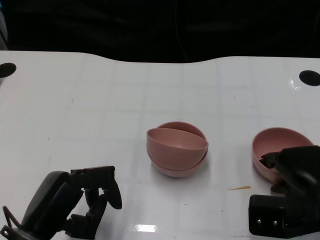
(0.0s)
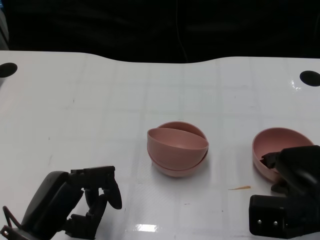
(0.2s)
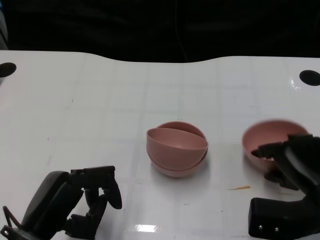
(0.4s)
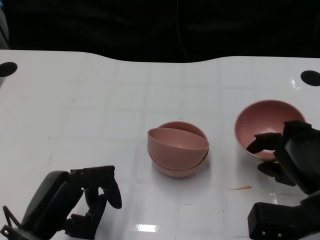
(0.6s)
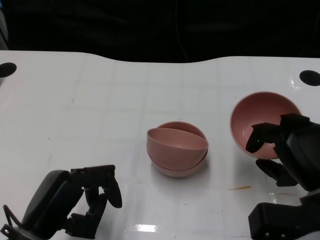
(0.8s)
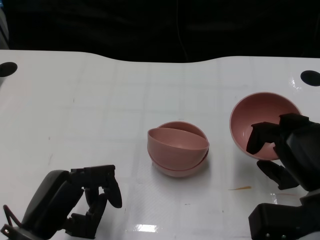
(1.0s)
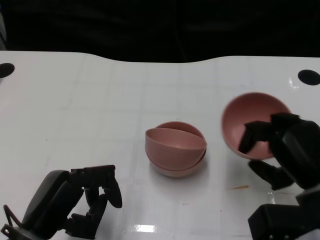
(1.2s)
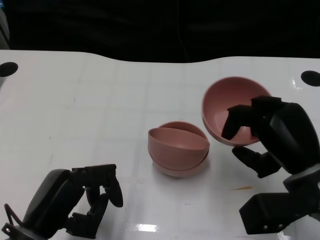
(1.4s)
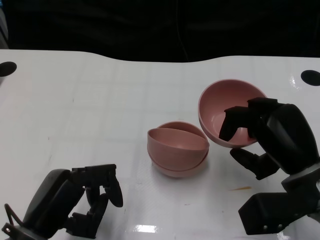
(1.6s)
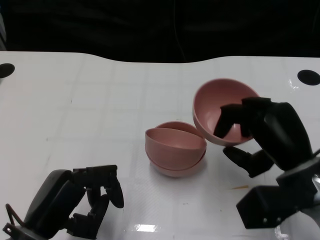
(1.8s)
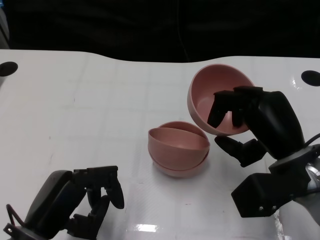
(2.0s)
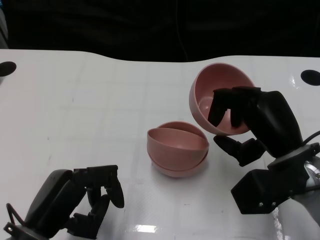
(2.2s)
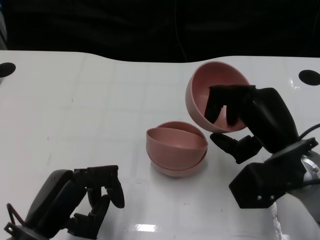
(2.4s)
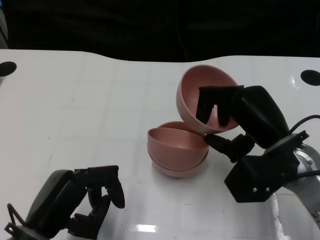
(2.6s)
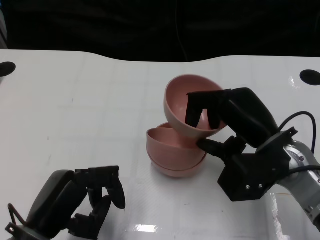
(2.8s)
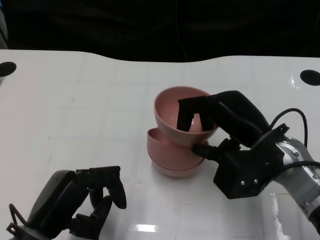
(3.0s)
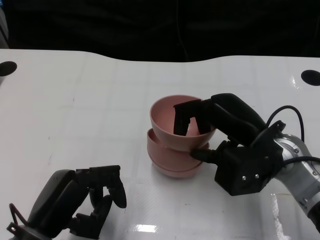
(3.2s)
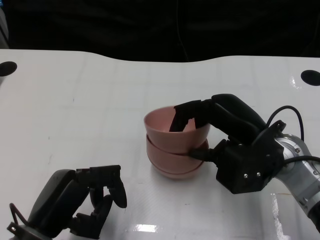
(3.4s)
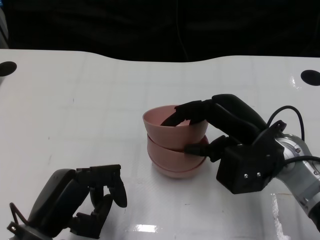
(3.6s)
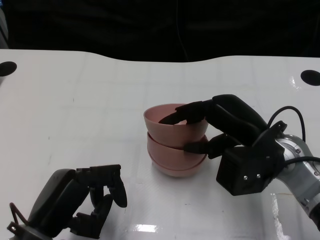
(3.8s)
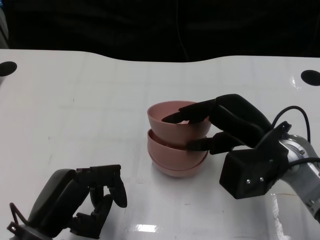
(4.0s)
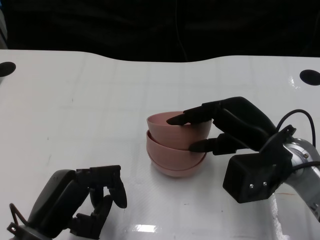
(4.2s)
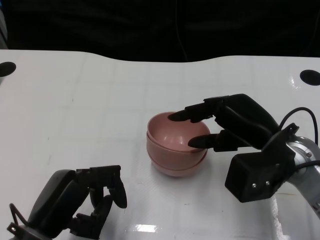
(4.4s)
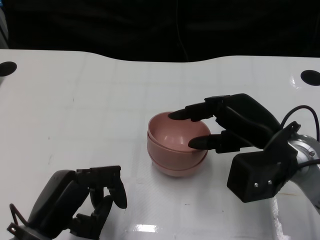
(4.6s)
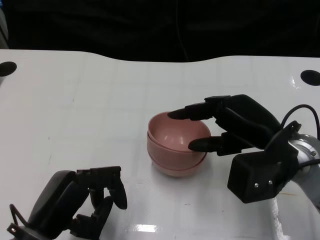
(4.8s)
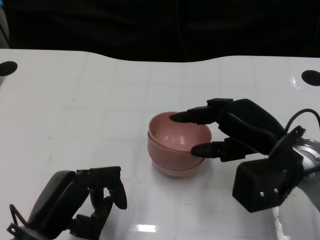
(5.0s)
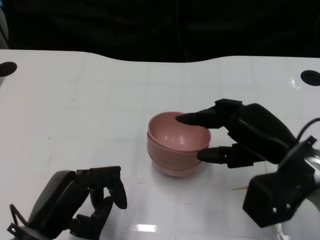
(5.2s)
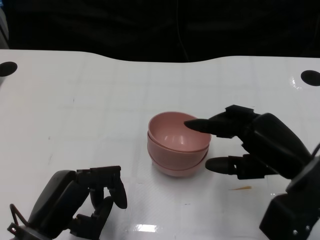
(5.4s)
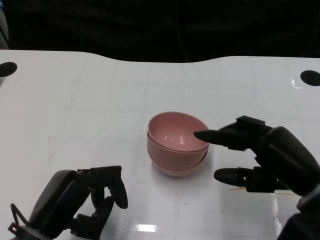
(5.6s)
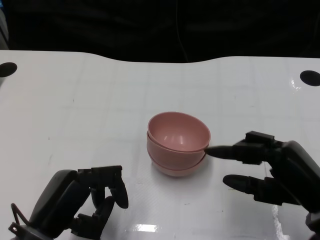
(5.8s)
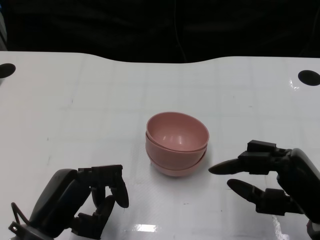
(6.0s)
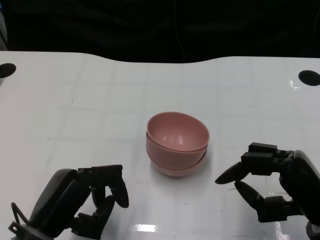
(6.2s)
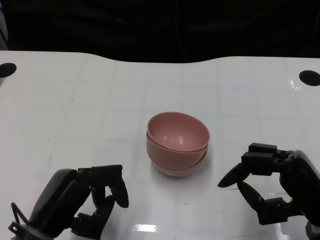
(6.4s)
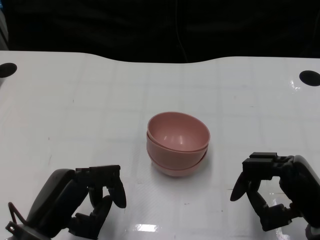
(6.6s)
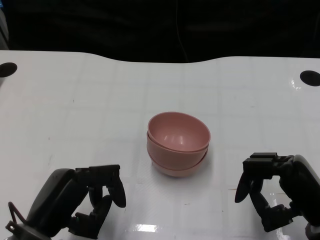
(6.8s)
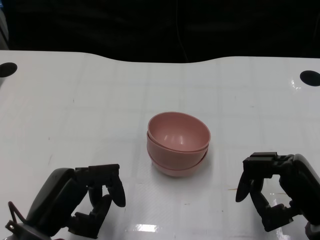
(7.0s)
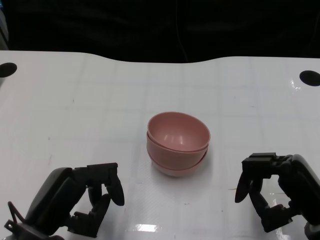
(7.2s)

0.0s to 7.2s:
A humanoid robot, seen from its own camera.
Task of the whole recording: Pick up the bowl on one side of the table and place it on top of the middle bowl, then pick up the bowl on the other side of the table and place it on top of the middle bowls.
Step, 0.4s to 5.4s: Place the bowl on the right onto the bowl in the middle with right gripper.
1.4s to 2.8s: The right hand shifts by approximately 5 cm.
2.8s to 4.4s: The hands stay close to where they were, moving slightly.
4.4s to 5.8s: The right hand heads backward and to the right, covering approximately 10 cm.
5.8s to 7.2s: There are only small adjustments of the hands.

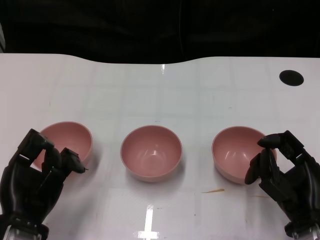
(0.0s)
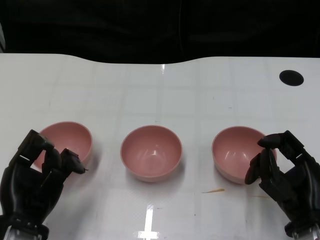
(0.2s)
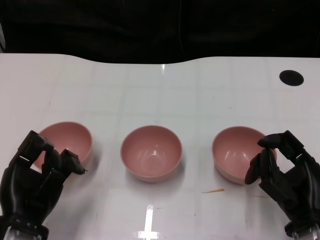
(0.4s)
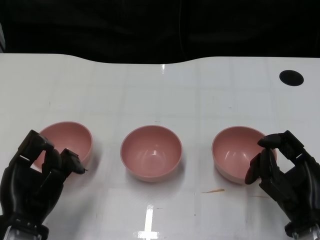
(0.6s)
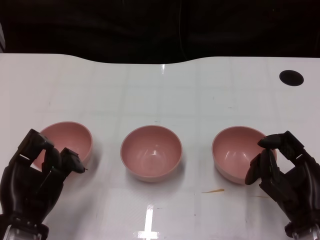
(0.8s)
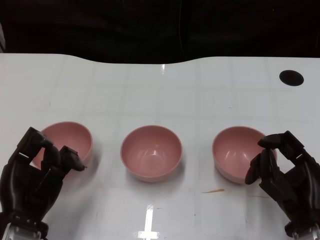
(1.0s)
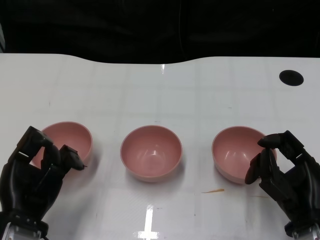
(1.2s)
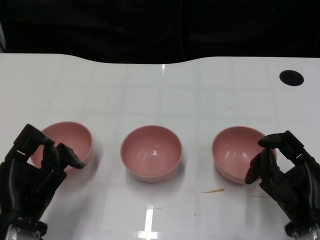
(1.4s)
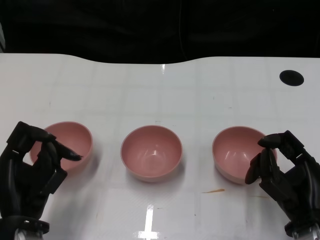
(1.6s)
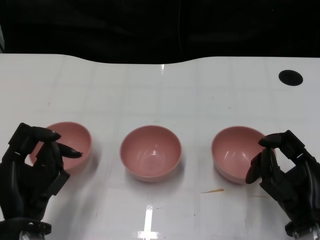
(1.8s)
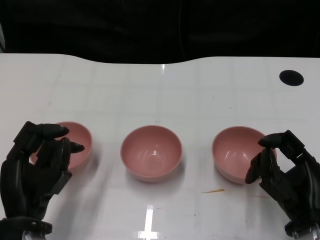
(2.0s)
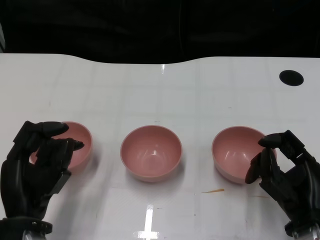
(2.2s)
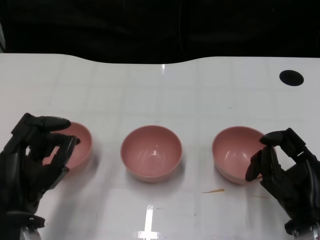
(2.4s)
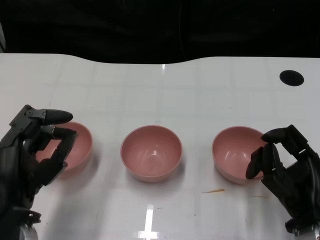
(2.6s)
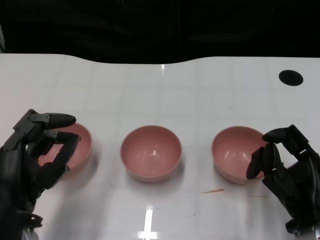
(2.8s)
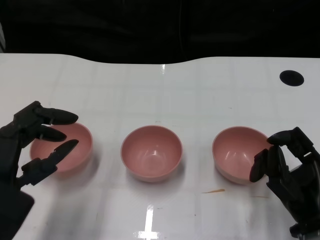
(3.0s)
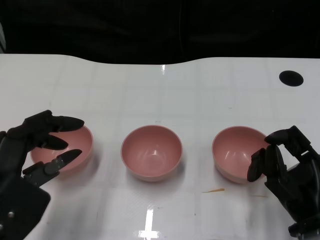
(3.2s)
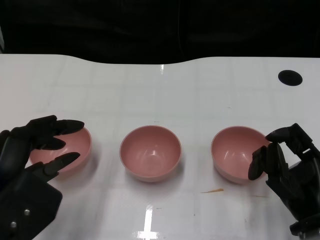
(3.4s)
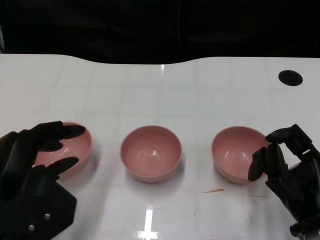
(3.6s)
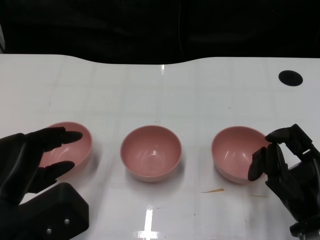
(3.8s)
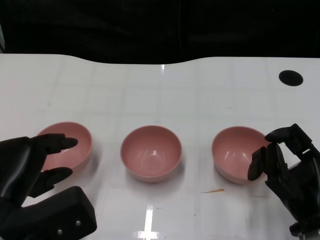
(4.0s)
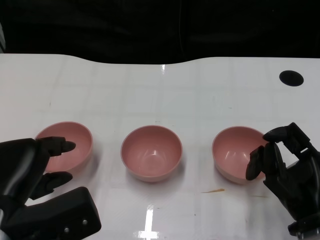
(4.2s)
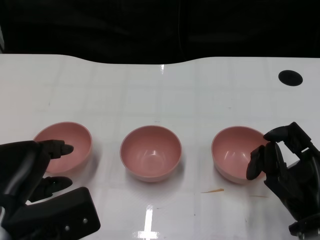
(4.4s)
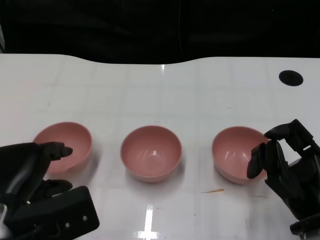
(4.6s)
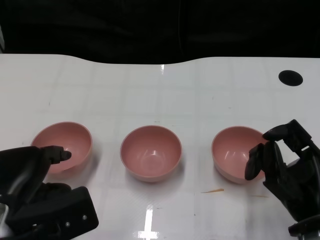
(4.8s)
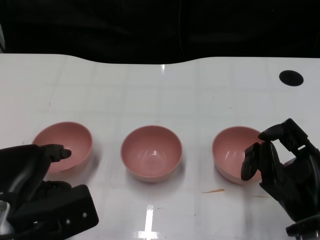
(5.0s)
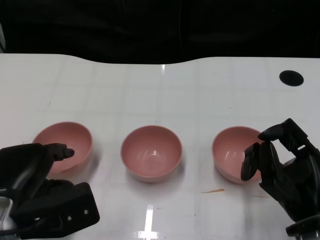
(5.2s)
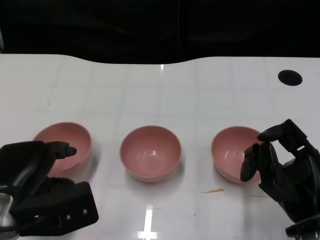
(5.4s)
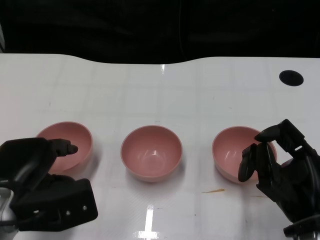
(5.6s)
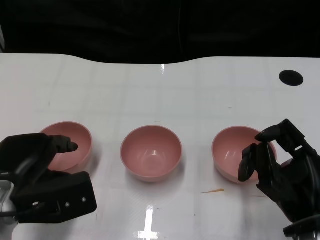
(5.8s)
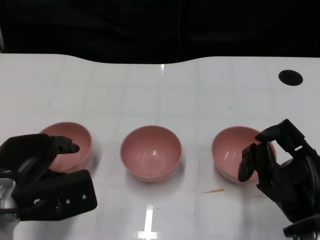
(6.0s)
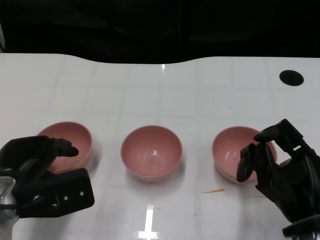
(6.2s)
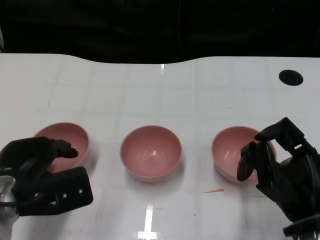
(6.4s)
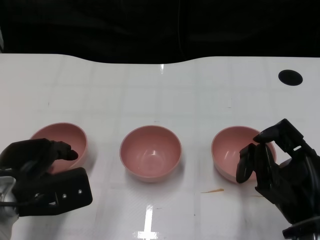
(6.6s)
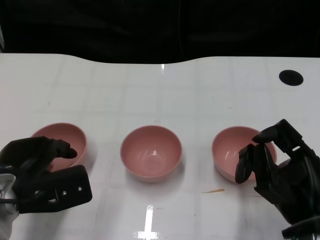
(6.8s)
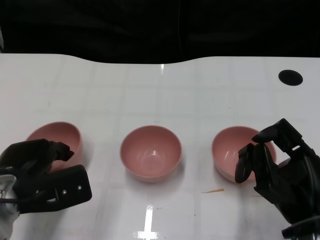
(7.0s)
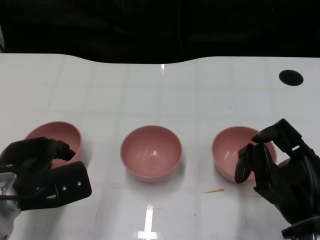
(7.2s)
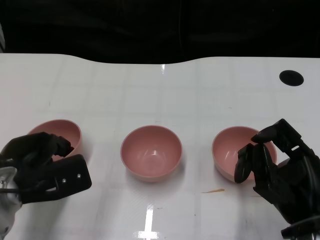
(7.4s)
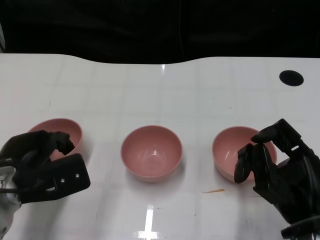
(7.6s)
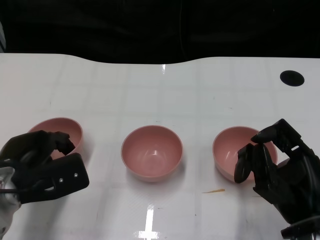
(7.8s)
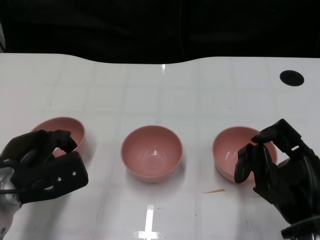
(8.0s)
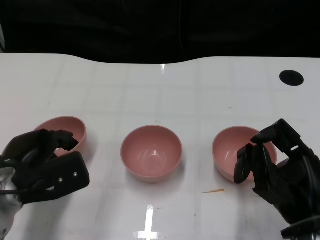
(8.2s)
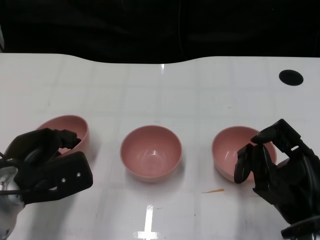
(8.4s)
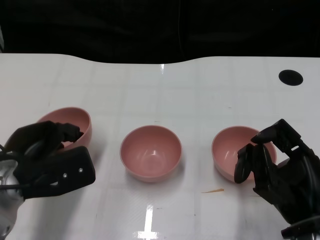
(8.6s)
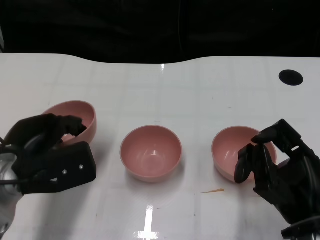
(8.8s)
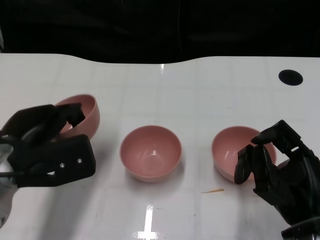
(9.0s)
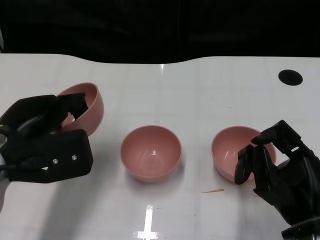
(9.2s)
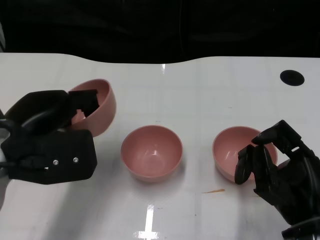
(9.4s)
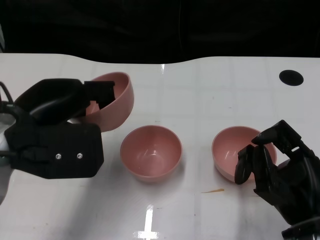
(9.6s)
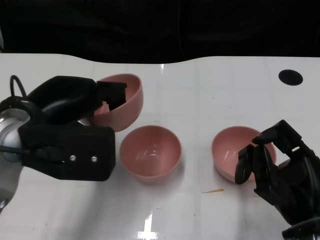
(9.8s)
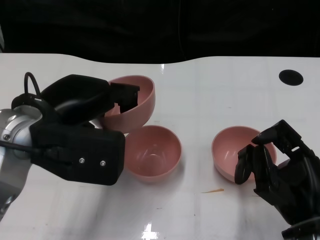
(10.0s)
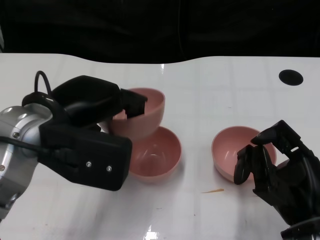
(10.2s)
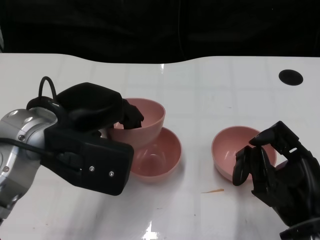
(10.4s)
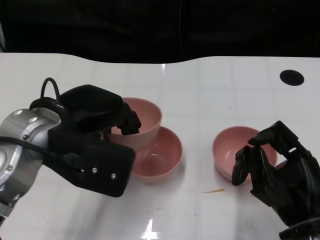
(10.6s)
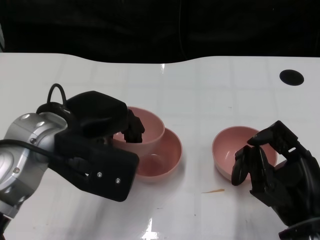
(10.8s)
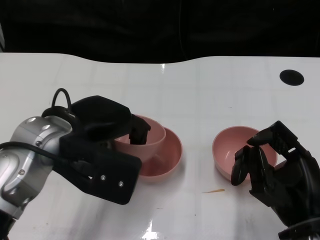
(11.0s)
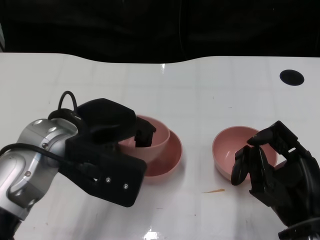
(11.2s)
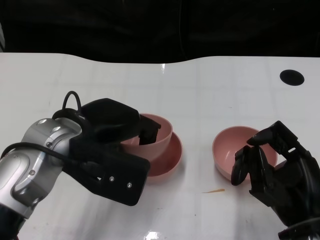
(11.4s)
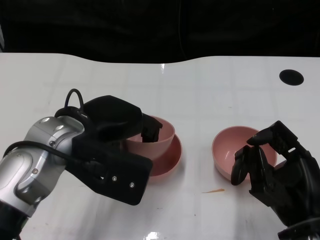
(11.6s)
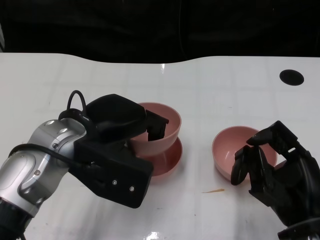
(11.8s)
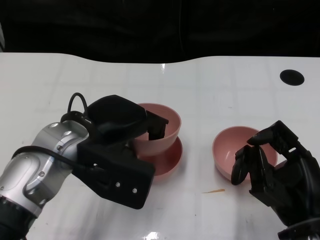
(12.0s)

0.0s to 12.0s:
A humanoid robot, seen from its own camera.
Task of the whole recording: Pick up the bowl on one side of the table and place it on top of the middle bowl, then pick up the bowl on the other side of the table and place it on top of the middle bowls.
Step, 1.4s to 8.2s: Grasp the bowl on the left with the left gripper.
1.6s to 3.0s: The left hand travels upward by approximately 5 cm.
4.4s to 6.0s: The left hand changes place by approximately 5 cm.
6.0s to 7.6s: The hands stay close to where they were, moving slightly.
7.6s to 9.0s: The left hand shifts about 5 cm upward.
9.0s to 10.4s: The left hand shifts about 10 cm upward and to the right.
10.4s to 12.0s: The hands make only small movements.

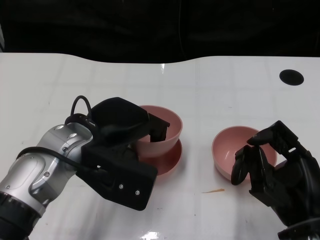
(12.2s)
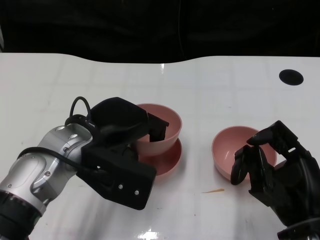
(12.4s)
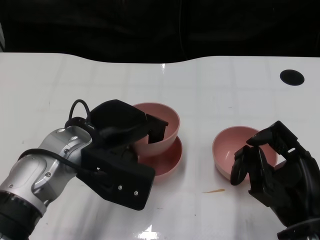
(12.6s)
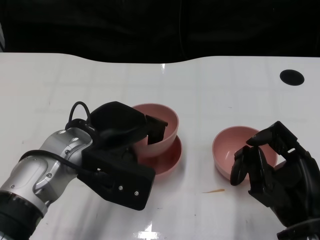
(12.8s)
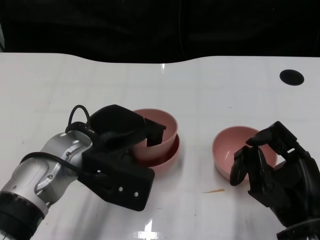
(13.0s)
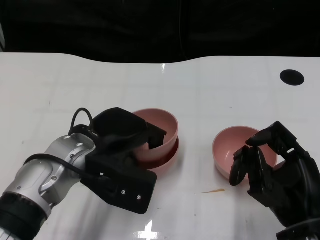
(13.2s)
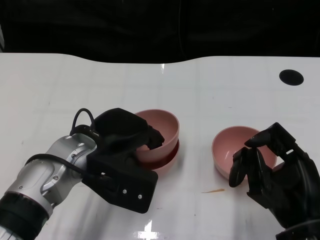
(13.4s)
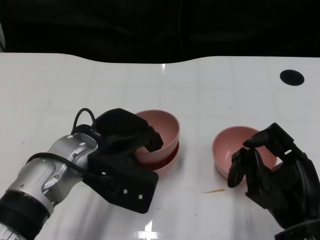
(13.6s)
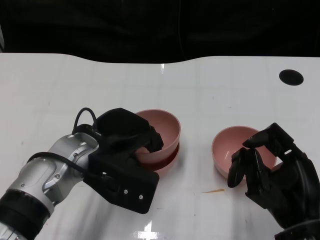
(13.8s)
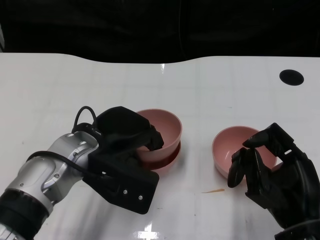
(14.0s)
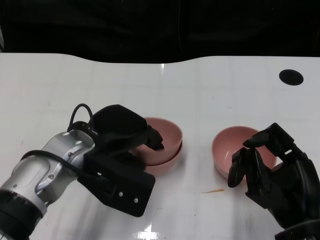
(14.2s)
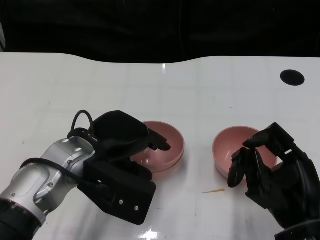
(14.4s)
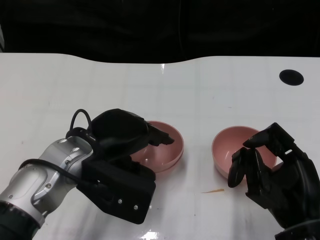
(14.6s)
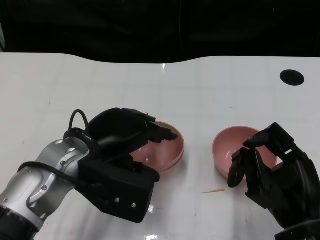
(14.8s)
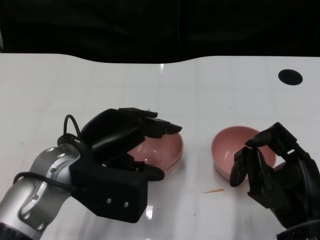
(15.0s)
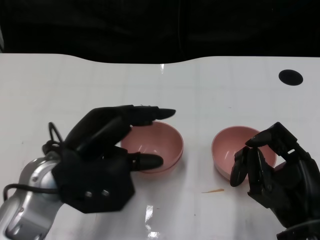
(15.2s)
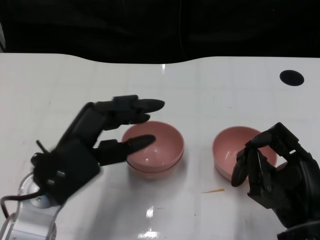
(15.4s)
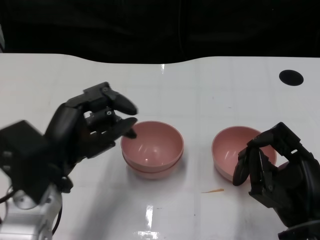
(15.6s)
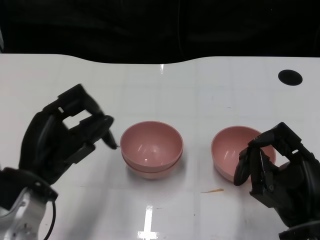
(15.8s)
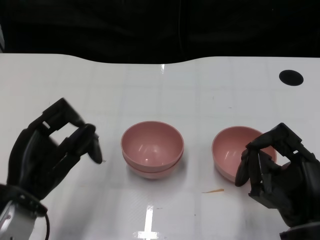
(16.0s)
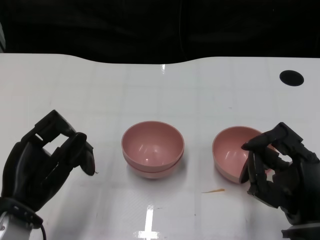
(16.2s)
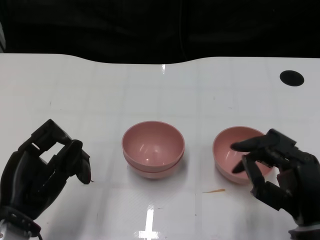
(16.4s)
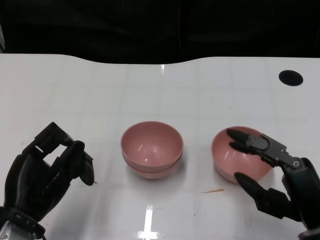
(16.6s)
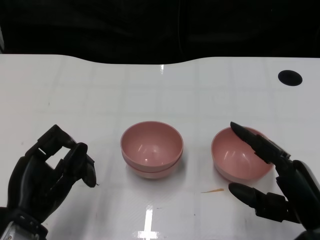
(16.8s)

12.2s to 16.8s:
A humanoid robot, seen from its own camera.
Task of the whole recording: Pick up the bowl on one side of the table and place it on top of the middle bowl, then pick up the bowl on the other side of the table and place it on top of the middle bowls.
Step, 12.2s to 14.8s: Place the bowl on the left onto the bowl in the middle with left gripper.
12.2s to 13.8s: The hands make only small movements.
13.8s to 15.2s: The left hand moves approximately 5 cm.
15.2s to 16.8s: The left hand shifts some 10 cm downward, to the left and backward.
